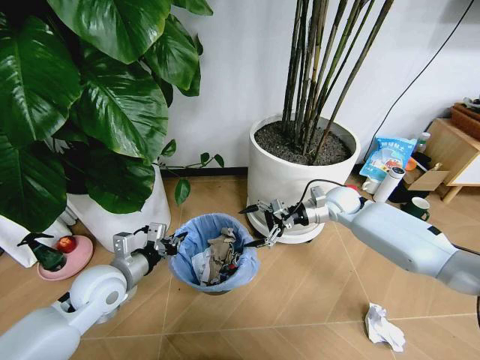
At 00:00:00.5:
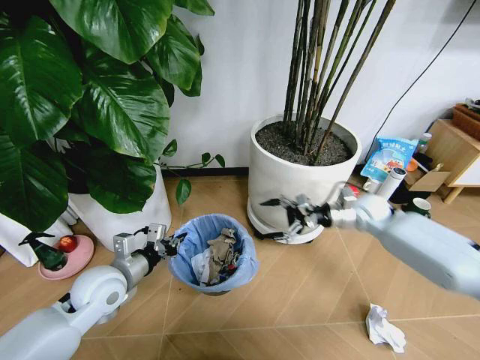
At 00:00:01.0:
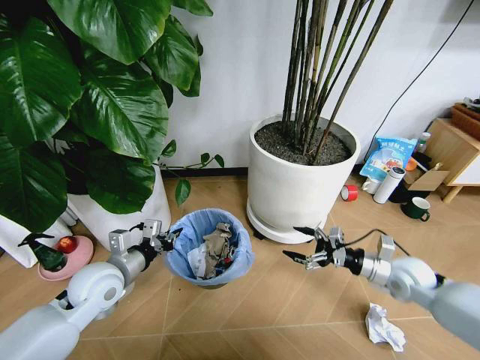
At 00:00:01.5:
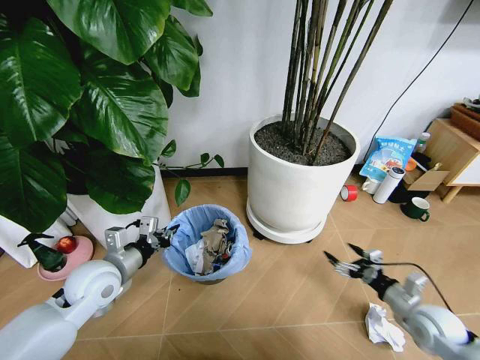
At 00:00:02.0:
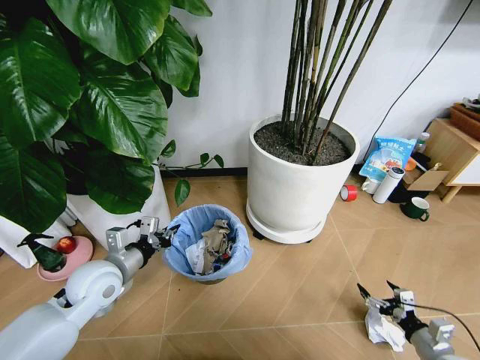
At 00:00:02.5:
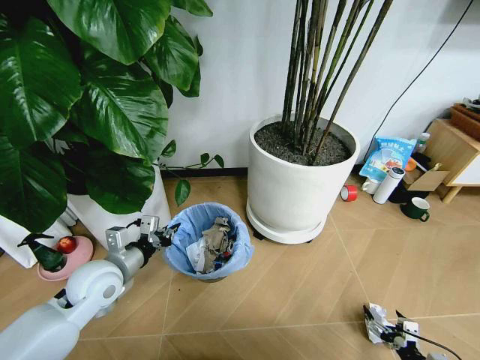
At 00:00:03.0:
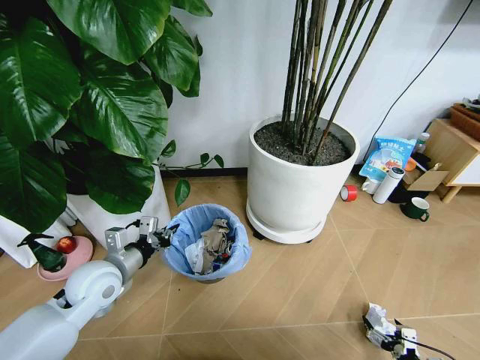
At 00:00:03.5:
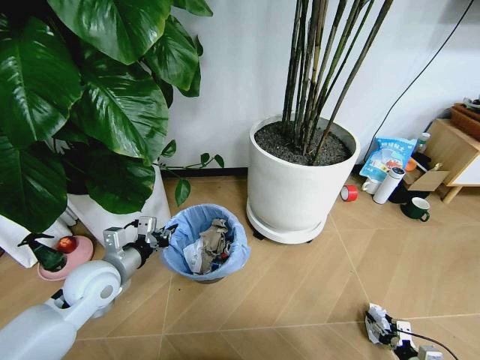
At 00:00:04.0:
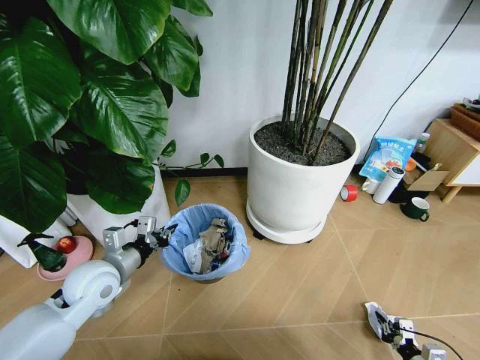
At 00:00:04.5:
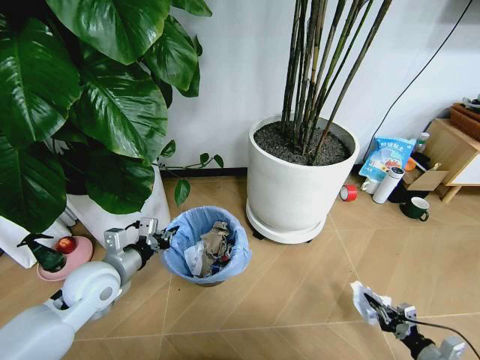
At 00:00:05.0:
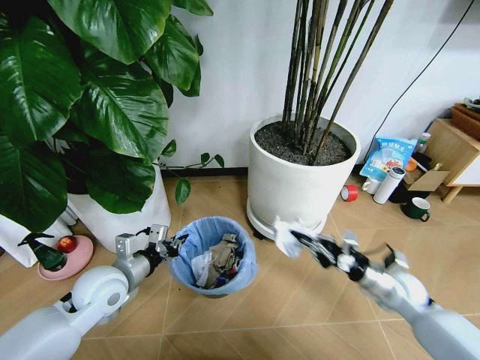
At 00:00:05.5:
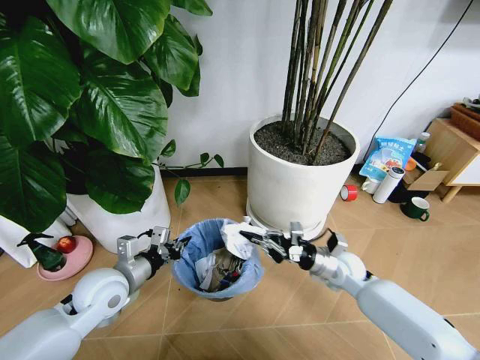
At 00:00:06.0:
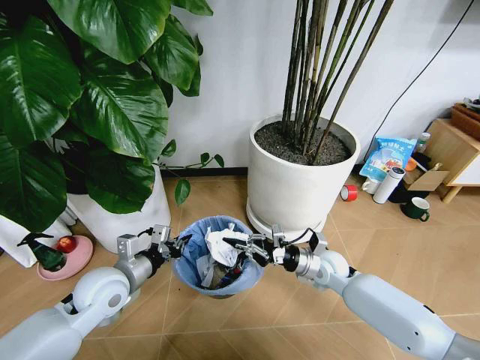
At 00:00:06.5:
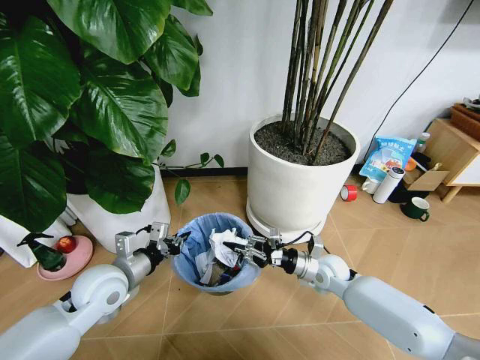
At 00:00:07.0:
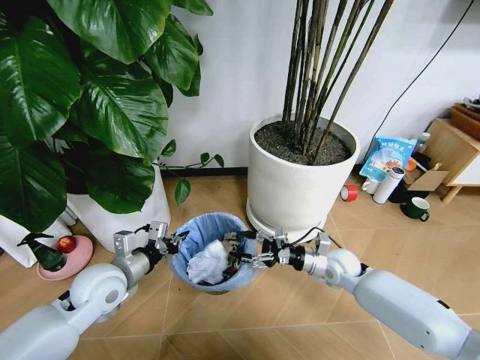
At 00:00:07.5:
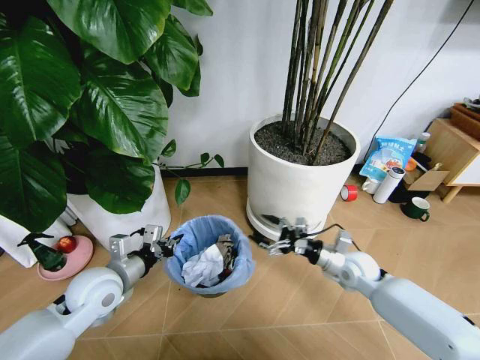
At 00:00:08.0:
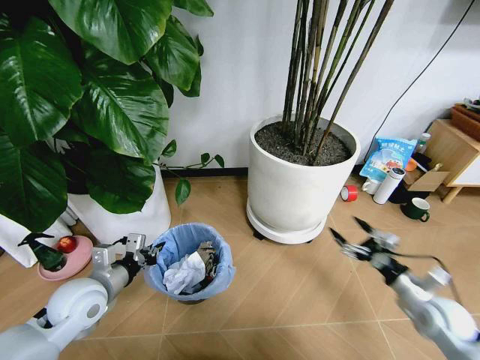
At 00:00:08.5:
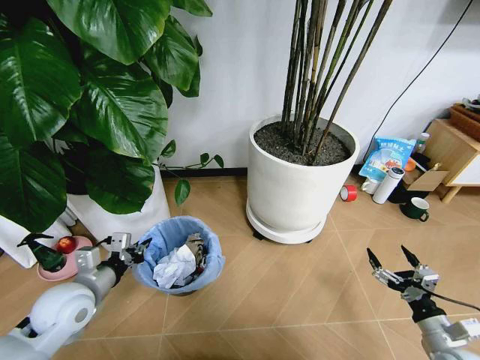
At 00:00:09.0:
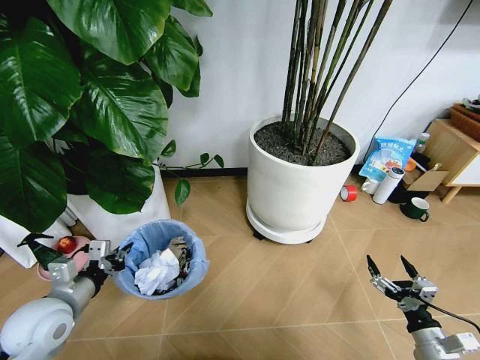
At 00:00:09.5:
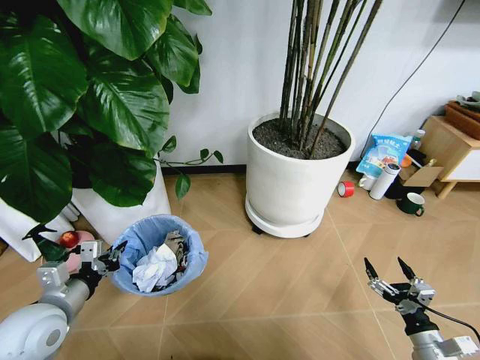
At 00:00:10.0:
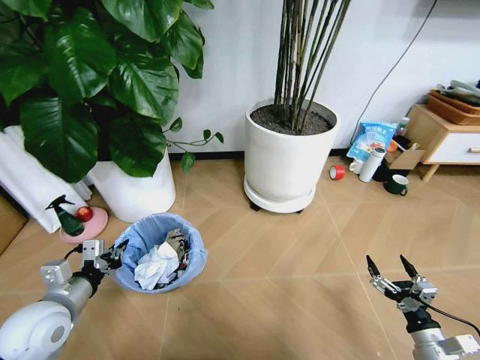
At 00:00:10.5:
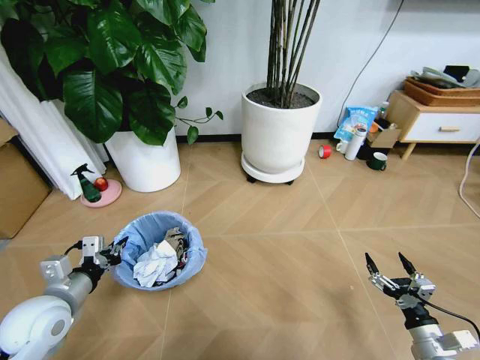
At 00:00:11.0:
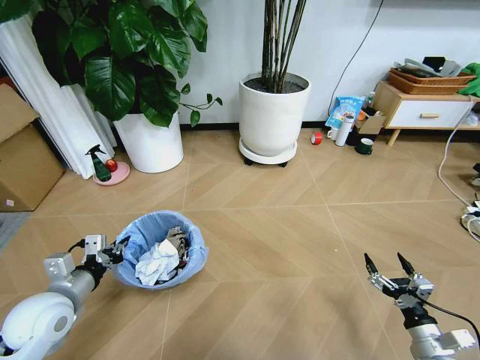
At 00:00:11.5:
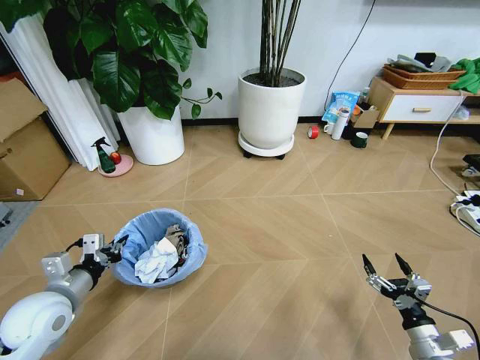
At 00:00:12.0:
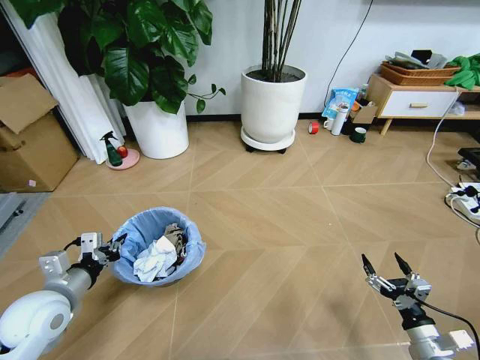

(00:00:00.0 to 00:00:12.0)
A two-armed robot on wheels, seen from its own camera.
Task of the whole recording: Pick up the trash bin and place the garbage on the floor into it.
00:00:00.0 - 00:00:02.0: The right gripper is displaced backward, to the right and downward by roughly 40 cm.
00:00:02.0 - 00:00:04.0: The right gripper goes about 10 cm downward, and closes up.
00:00:04.0 - 00:00:06.0: The right gripper travels forward, to the left and upward by about 40 cm.
00:00:06.0 - 00:00:08.0: The right gripper moves to the right and backward, about 25 cm, and opens its fingers.
00:00:08.0 - 00:00:10.0: The left gripper ends up about 5 cm from where it was. Meanwhile the right gripper heads backward and downward, covering roughly 15 cm.

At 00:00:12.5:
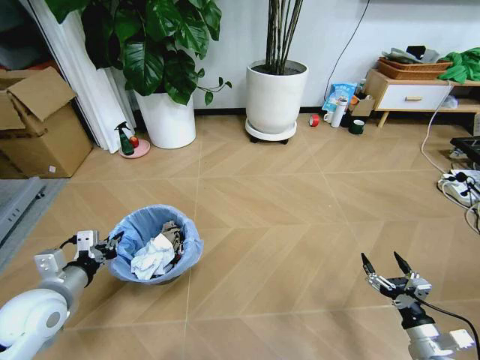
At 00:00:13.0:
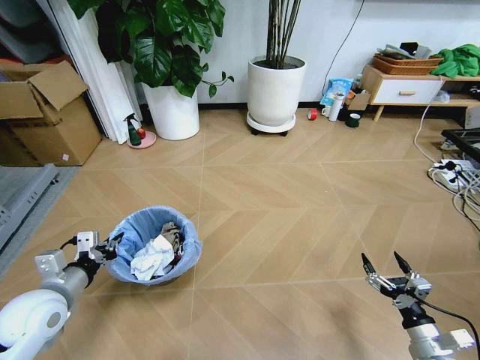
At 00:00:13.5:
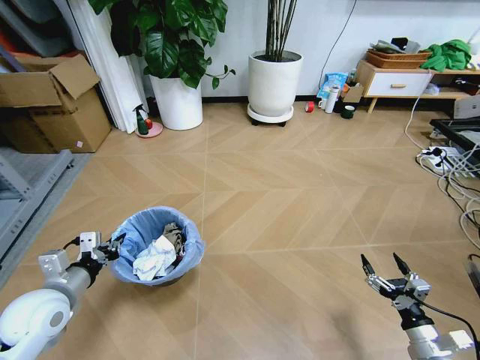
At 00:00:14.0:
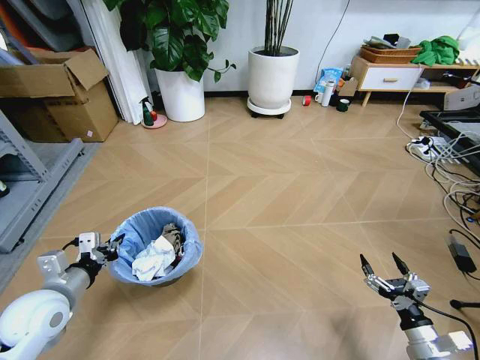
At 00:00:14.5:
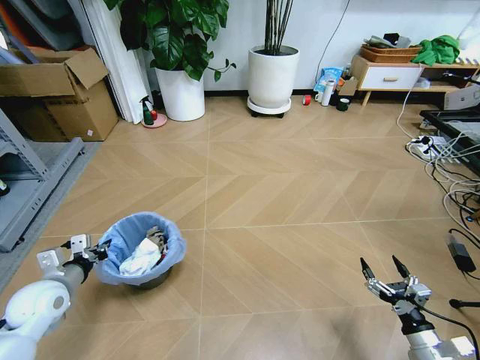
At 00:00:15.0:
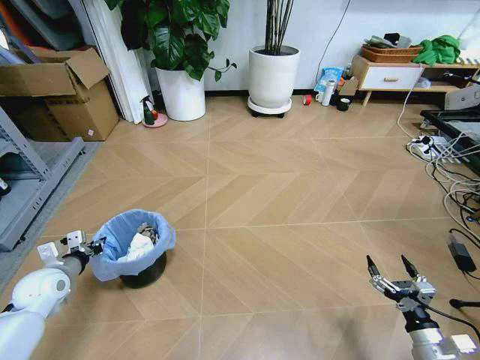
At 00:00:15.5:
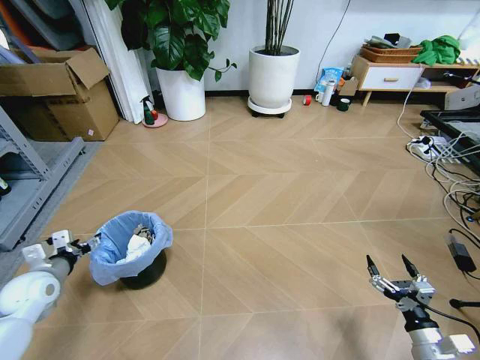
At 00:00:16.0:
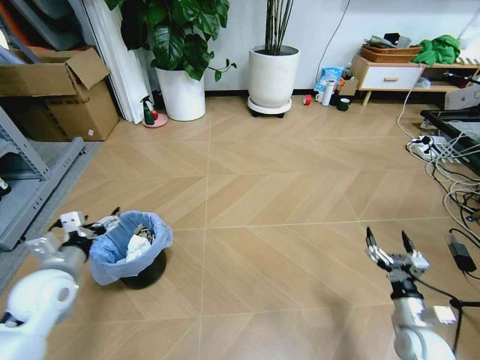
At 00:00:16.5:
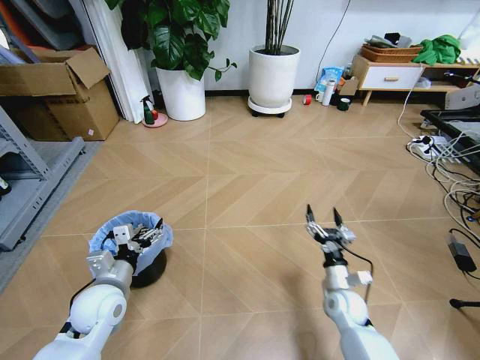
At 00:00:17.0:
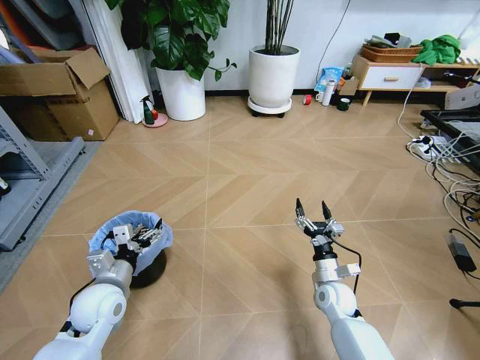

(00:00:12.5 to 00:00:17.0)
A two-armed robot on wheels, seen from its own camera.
Task of the whole recording: Pick up the trash bin and place the garbage on the floor into it.
00:00:12.5 - 00:00:14.5: The left gripper shifts by about 5 cm.
00:00:14.5 - 00:00:17.0: The left gripper travels to the right by approximately 10 cm, and opens its fingers, while the right gripper travels forward and to the left by some 25 cm.
